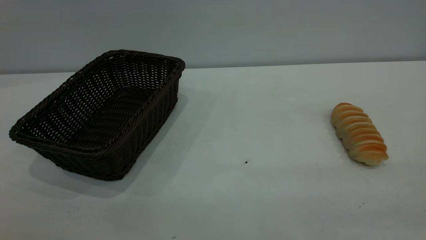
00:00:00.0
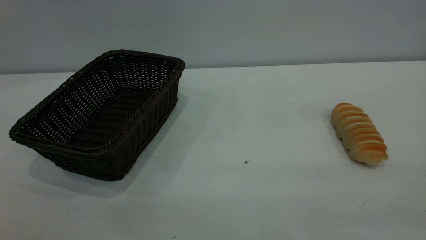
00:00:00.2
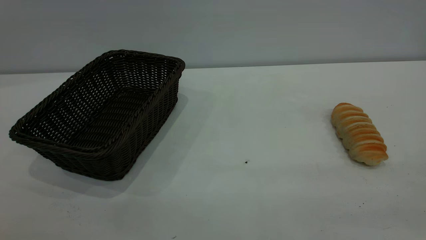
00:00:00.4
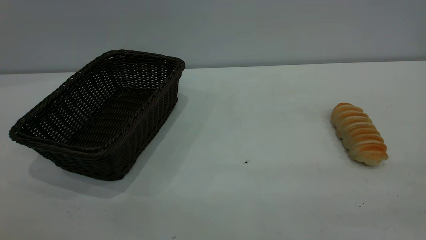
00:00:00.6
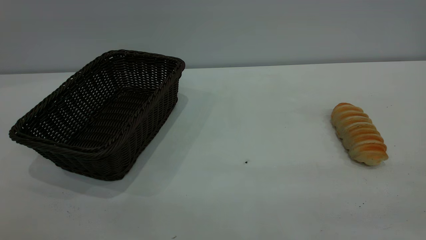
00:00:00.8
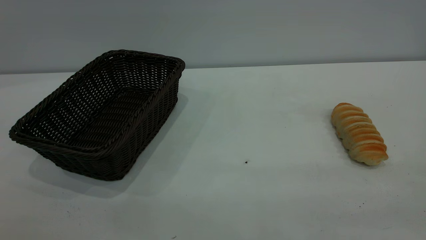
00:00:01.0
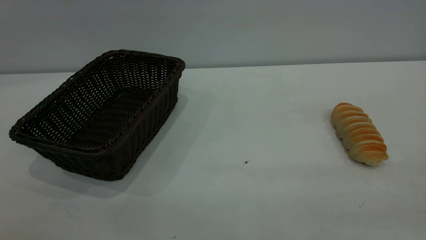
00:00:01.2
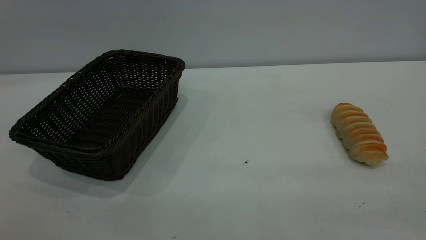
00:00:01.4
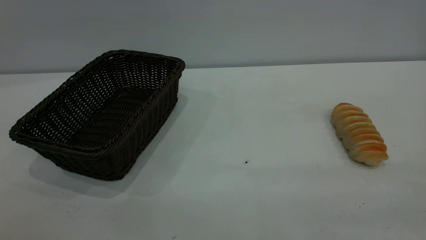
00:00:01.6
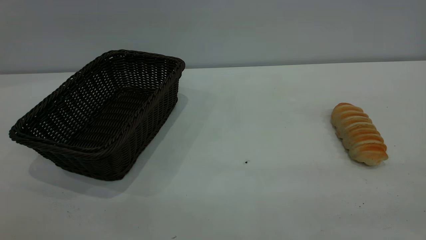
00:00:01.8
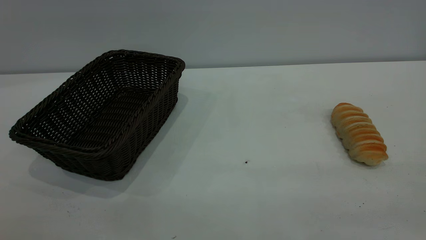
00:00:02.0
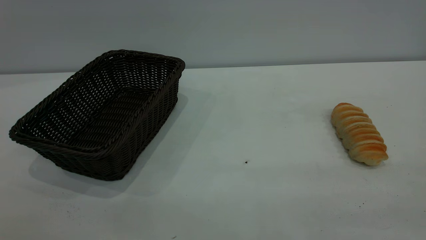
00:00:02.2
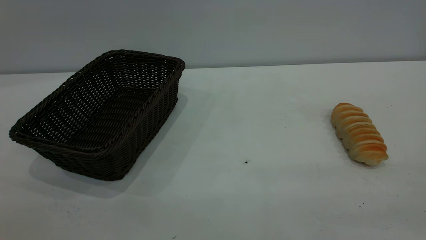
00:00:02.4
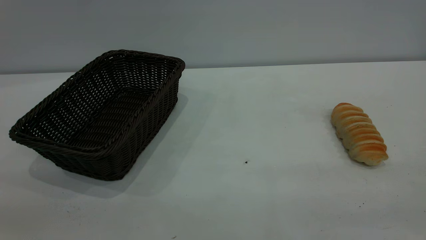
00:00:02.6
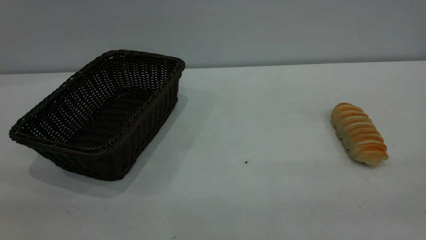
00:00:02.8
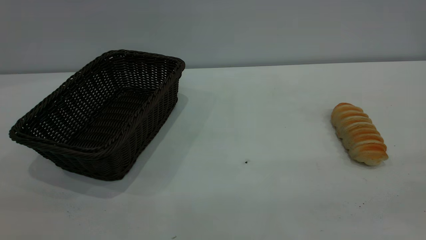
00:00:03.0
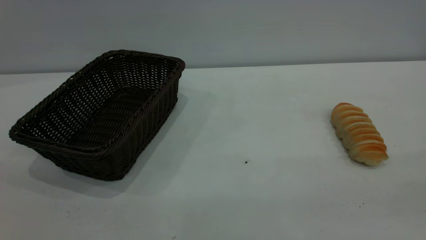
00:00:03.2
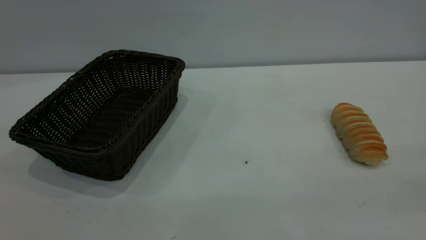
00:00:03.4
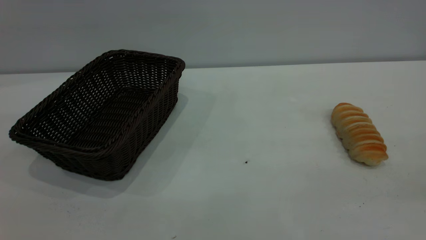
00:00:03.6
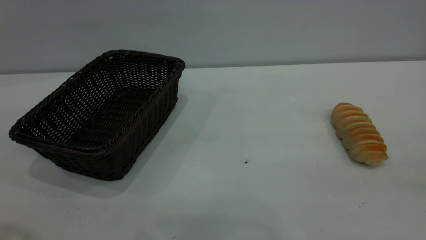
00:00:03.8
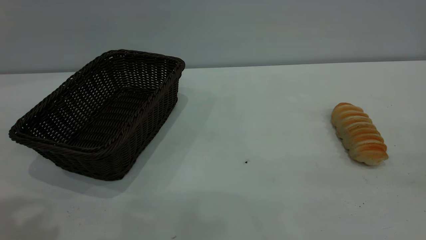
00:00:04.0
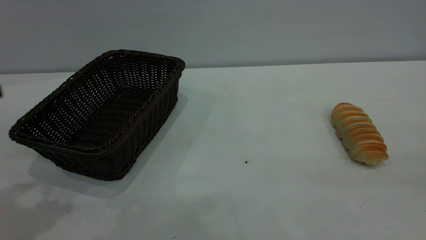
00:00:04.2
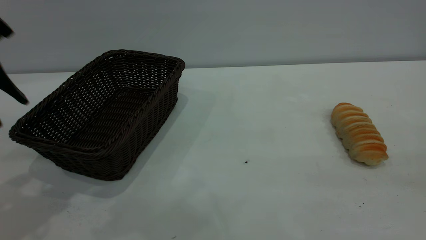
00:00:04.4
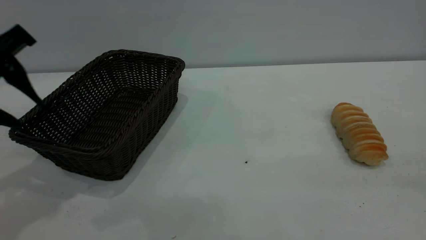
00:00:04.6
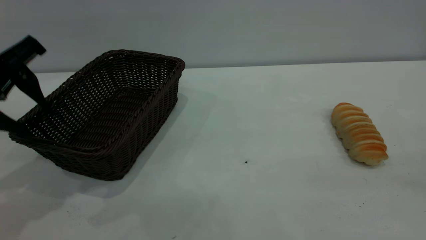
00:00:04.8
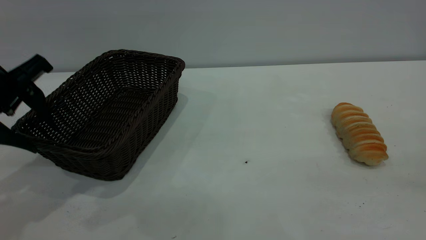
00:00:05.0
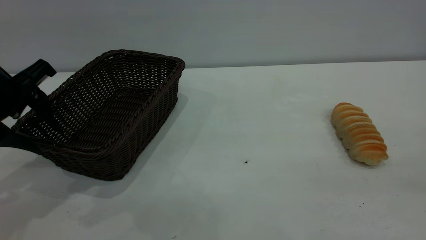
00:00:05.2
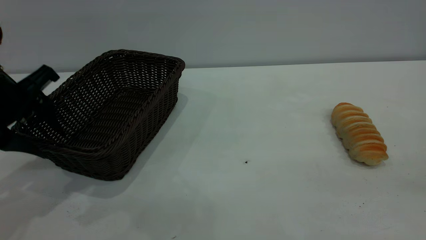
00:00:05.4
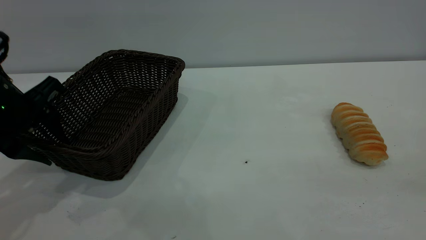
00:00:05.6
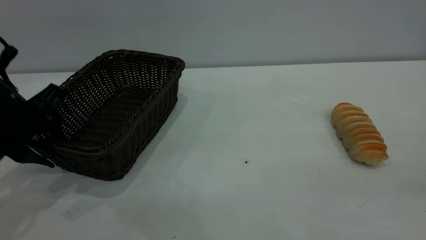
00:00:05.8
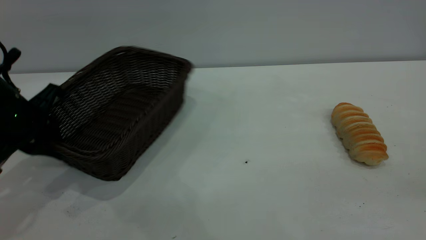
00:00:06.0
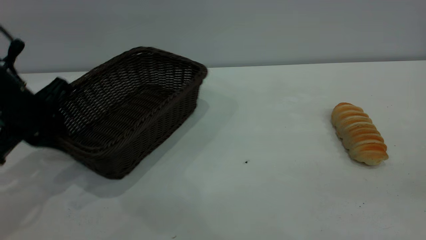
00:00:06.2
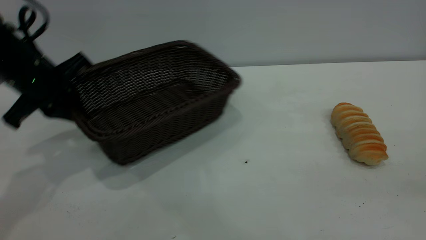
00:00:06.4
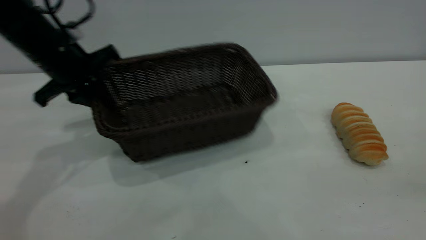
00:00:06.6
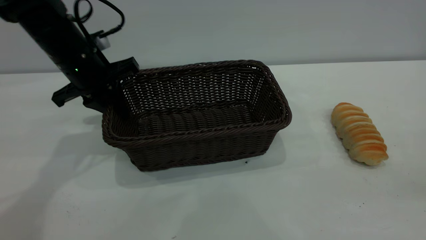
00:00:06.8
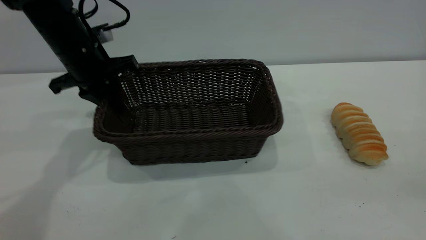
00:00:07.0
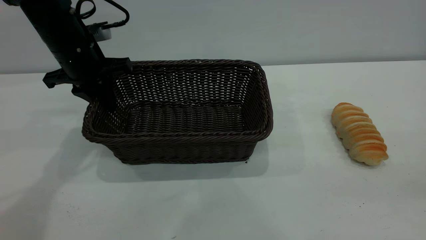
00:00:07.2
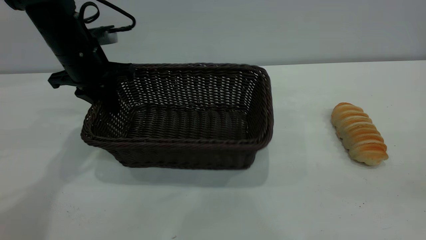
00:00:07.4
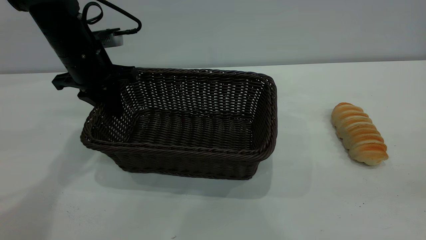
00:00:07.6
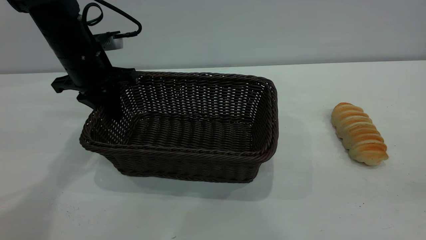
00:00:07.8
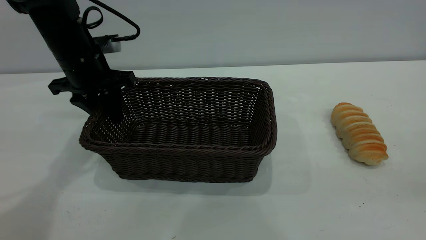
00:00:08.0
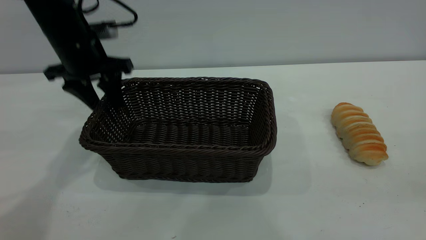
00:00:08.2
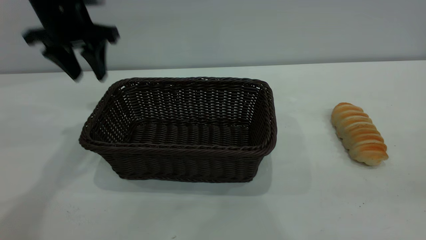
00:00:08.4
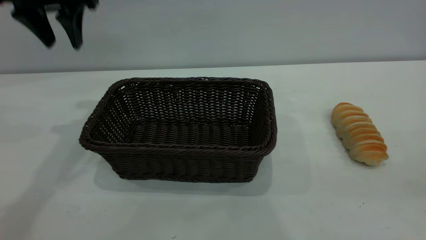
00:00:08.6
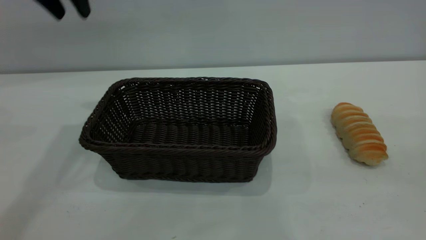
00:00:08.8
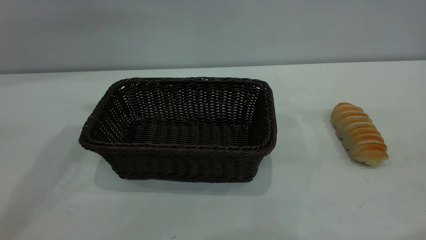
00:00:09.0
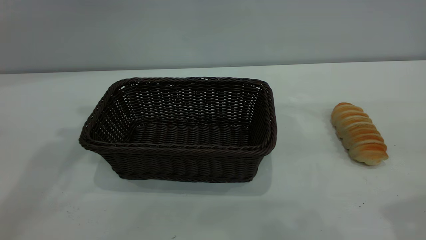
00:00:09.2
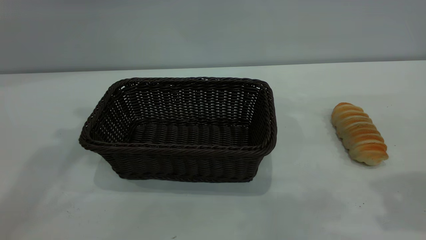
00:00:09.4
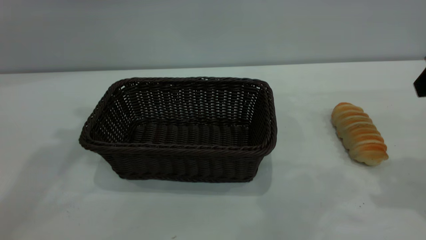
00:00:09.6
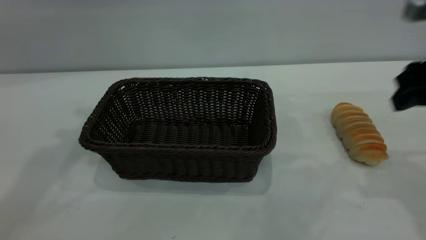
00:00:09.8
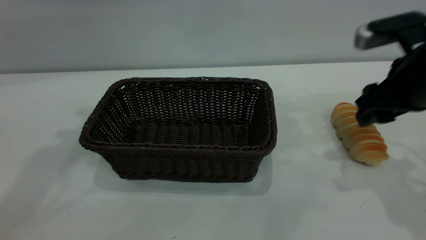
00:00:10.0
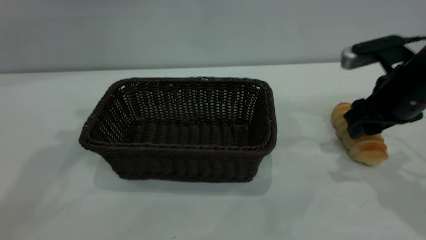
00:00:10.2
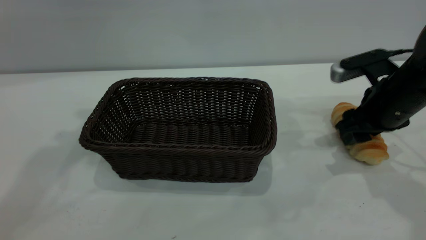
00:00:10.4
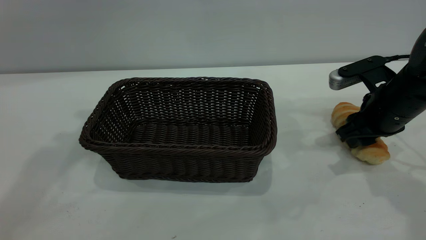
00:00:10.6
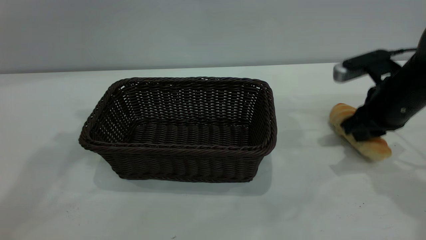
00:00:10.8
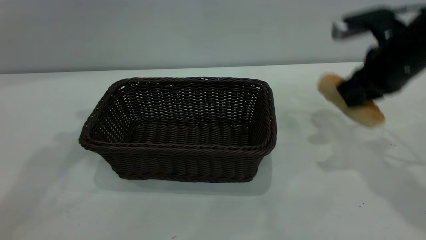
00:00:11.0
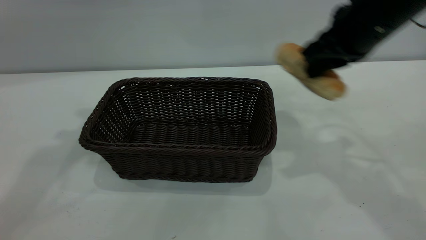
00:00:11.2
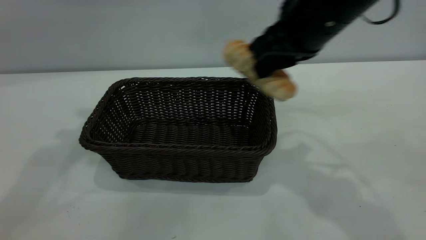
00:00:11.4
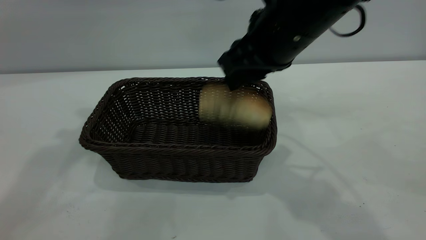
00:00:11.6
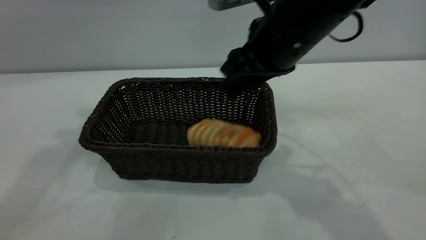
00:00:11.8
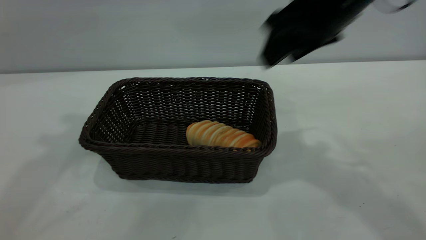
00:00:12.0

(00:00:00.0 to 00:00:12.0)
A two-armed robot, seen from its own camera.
Task of the whole recording: One hand grasps the black basket and places it in the middle of the table, while the other hand picks up the long bread and puts it into the black basket.
Step, 00:00:00.0 - 00:00:08.4: Move the basket to the center of view.
Step, 00:00:11.2 - 00:00:12.0: place the bread into the basket.
00:00:00.0 - 00:00:01.6: Both grippers stay put.
00:00:03.0 - 00:00:04.4: The left gripper goes about 25 cm forward and downward.
00:00:04.4 - 00:00:06.0: The left gripper goes approximately 15 cm downward and forward, and closes.
00:00:06.0 - 00:00:07.6: The left gripper moves forward and to the right, some 15 cm.
00:00:07.6 - 00:00:09.0: The right gripper shifts roughly 10 cm forward; the left gripper is displaced upward by some 20 cm, and opens.
00:00:09.0 - 00:00:10.4: The right gripper shifts some 30 cm downward and forward.
00:00:10.4 - 00:00:12.0: The left gripper ends up roughly 5 cm from where it was; the right gripper goes some 20 cm upward and to the left, and closes, then opens again.

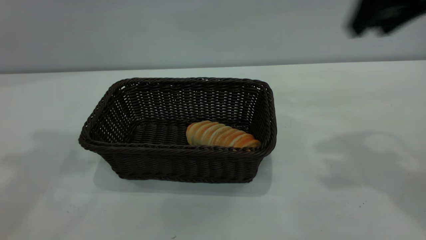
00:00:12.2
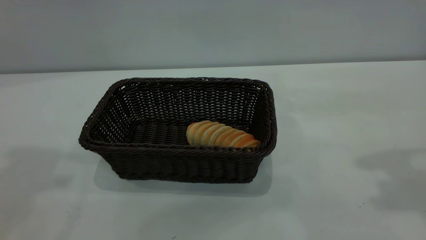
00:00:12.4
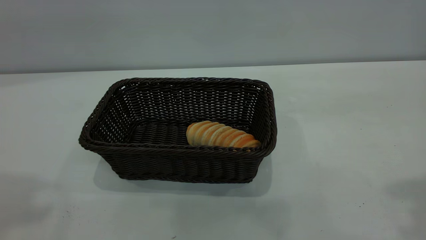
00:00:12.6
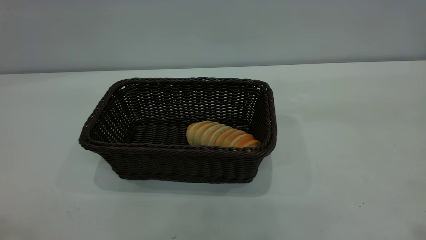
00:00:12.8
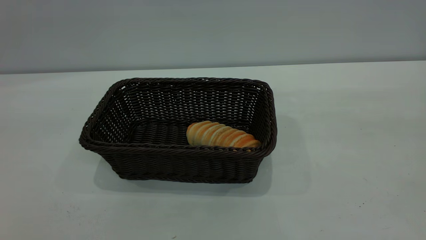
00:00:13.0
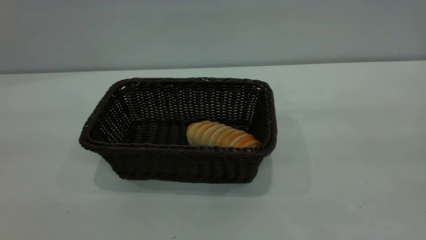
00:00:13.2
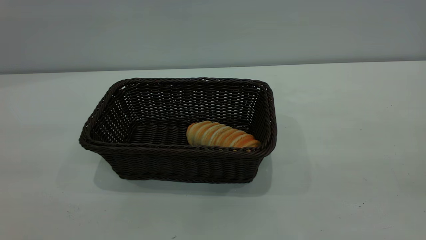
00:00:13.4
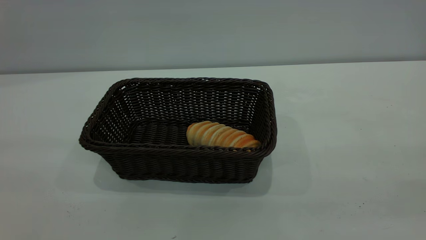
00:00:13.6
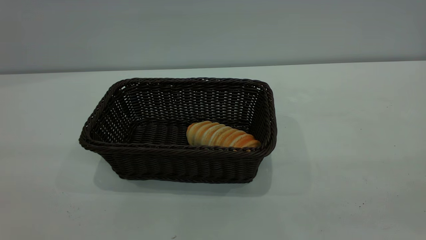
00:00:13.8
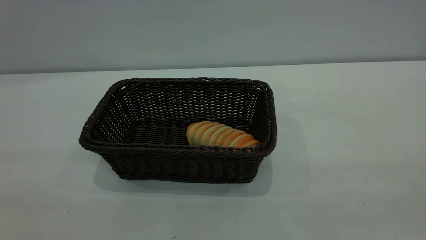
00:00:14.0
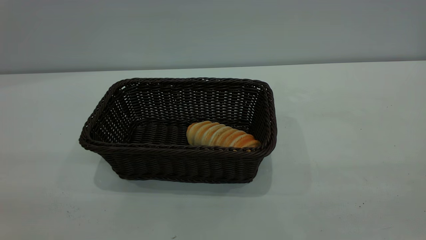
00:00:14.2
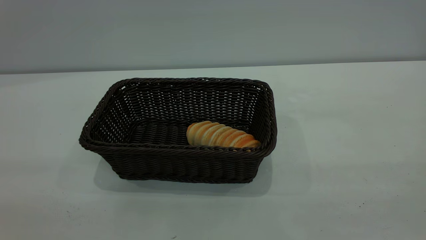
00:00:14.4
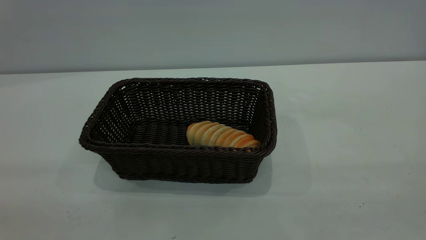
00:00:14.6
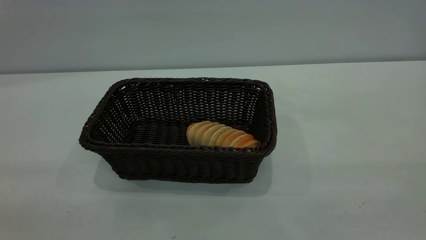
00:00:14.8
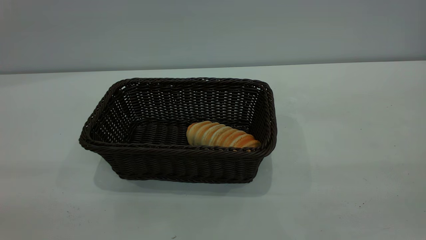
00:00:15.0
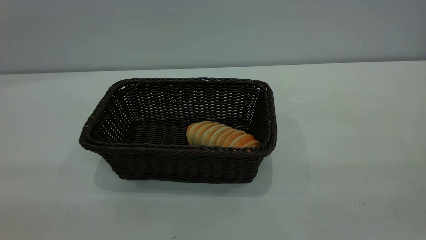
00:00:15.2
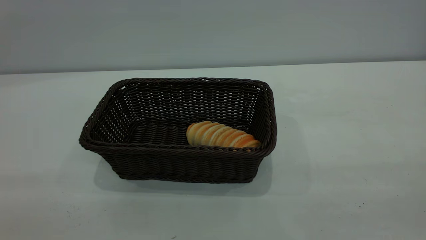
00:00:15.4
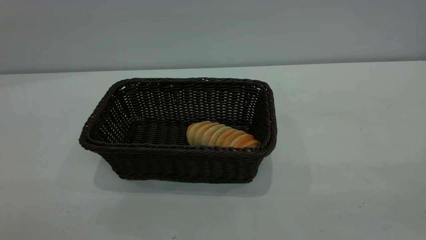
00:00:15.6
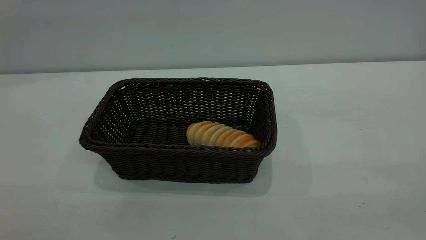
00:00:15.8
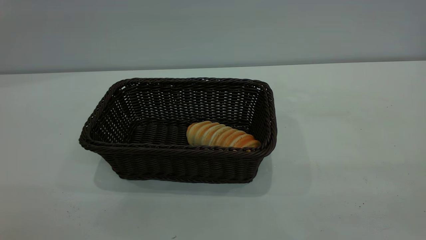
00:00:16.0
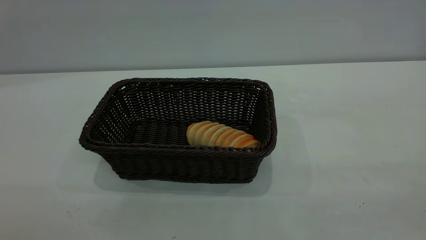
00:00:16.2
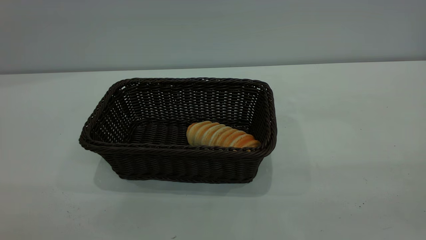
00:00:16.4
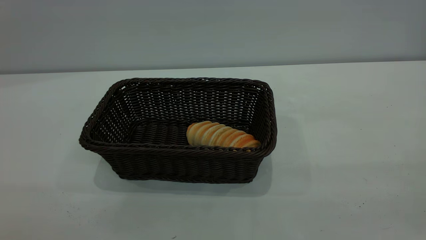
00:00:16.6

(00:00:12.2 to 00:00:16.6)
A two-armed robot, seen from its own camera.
Task of the whole recording: One hand grasps the black basket and places it in the middle of the table, while the other hand picks up the long bread and puts it into the black basket.
00:00:12.2 - 00:00:13.6: The right gripper travels backward by some 30 cm.
